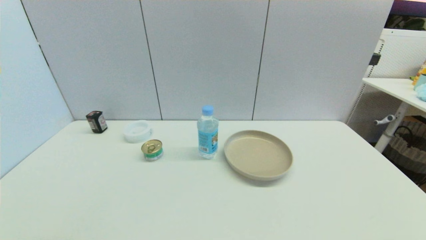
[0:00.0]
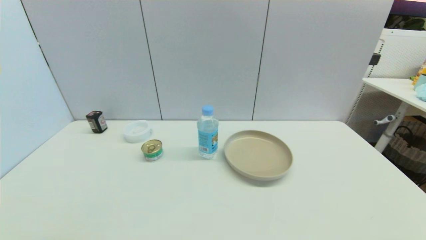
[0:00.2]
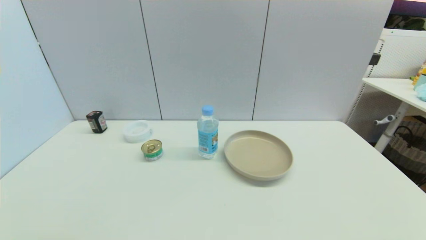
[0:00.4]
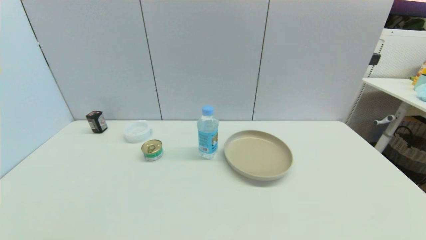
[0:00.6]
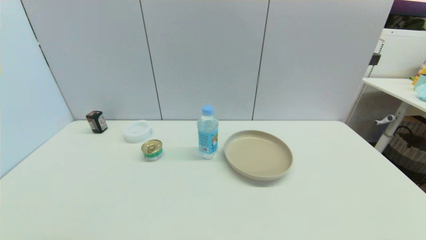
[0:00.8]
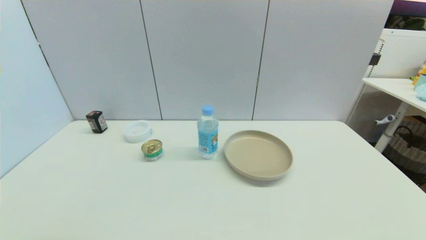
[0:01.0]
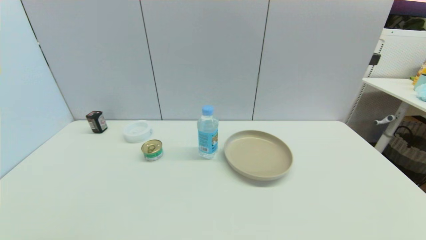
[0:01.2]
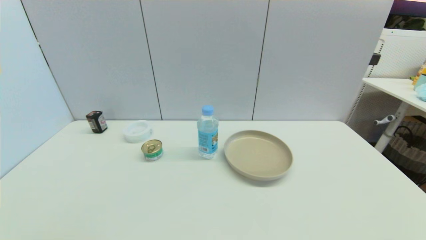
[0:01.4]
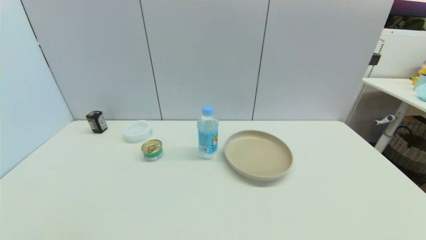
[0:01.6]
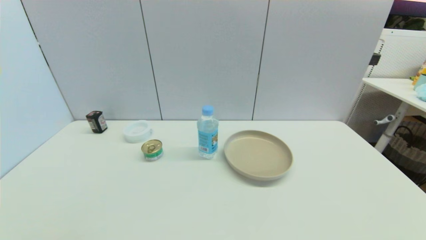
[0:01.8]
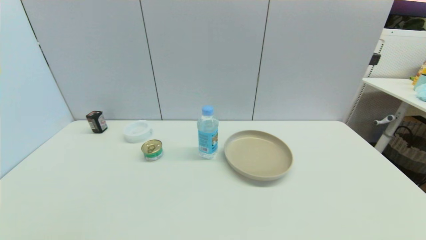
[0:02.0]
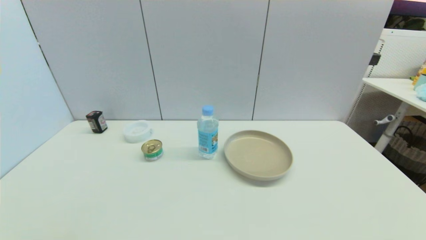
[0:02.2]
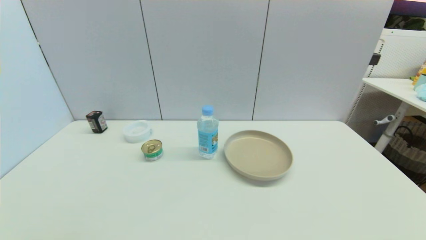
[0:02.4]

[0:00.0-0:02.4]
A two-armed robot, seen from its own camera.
0:01.2 to 0:02.4: Both grippers stay about where they are.

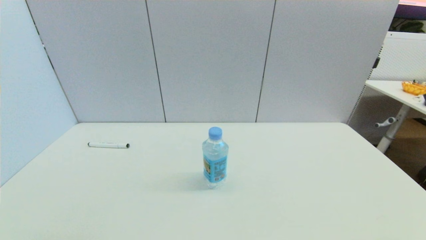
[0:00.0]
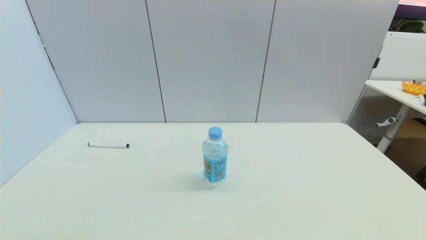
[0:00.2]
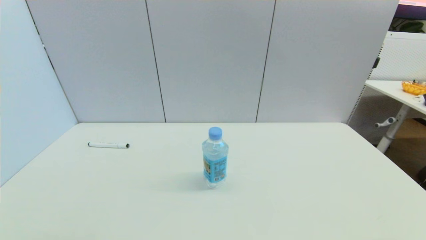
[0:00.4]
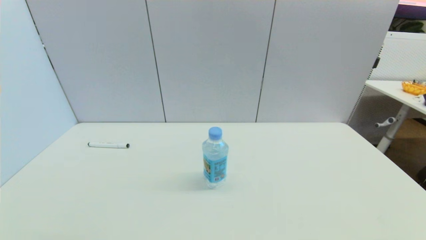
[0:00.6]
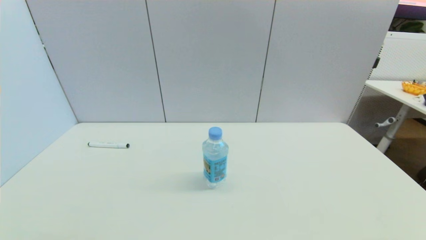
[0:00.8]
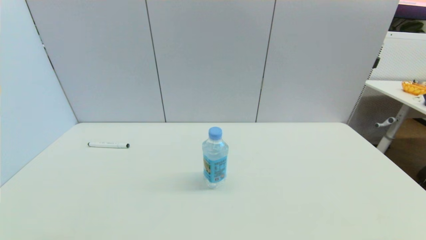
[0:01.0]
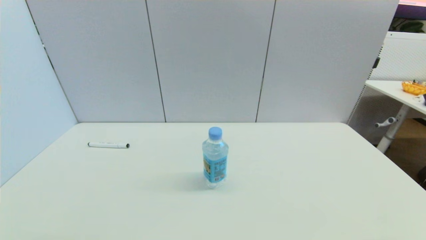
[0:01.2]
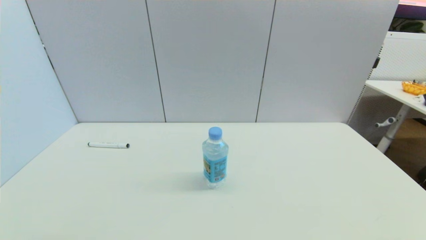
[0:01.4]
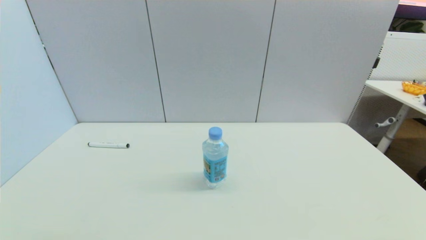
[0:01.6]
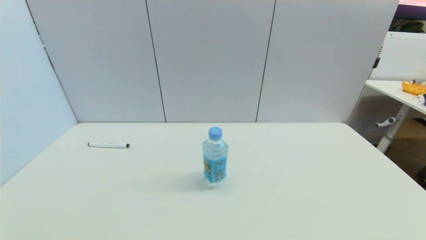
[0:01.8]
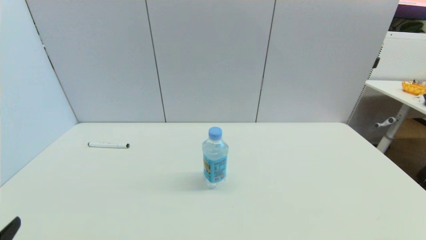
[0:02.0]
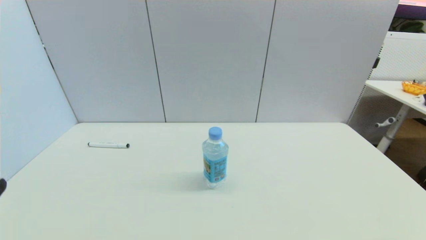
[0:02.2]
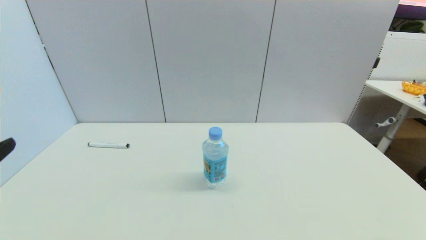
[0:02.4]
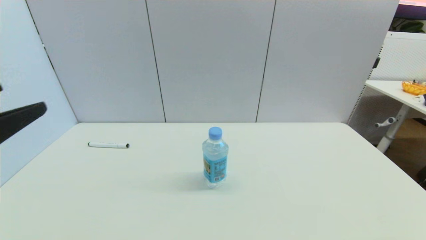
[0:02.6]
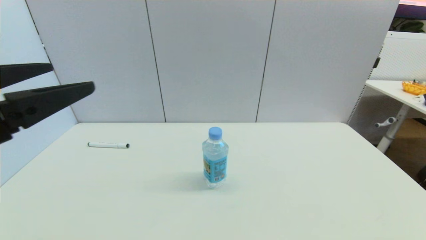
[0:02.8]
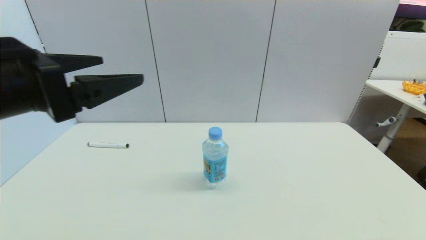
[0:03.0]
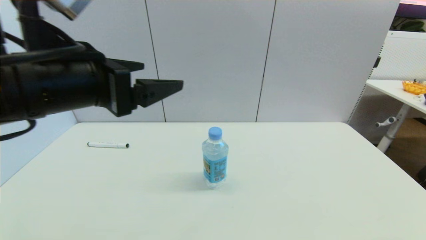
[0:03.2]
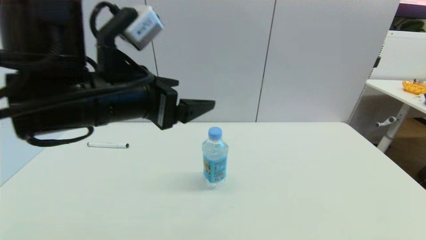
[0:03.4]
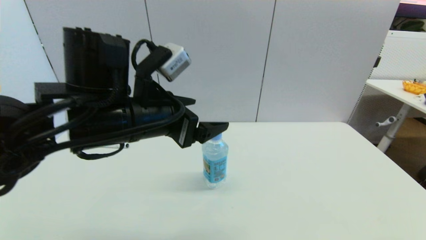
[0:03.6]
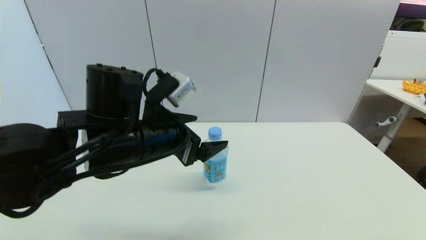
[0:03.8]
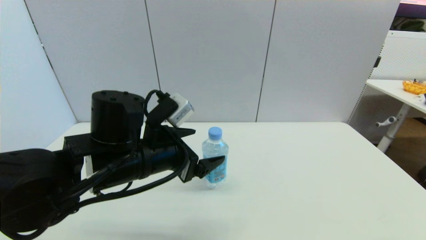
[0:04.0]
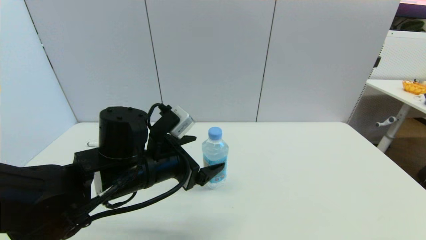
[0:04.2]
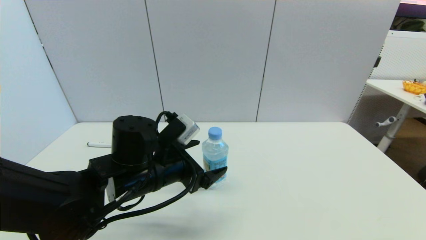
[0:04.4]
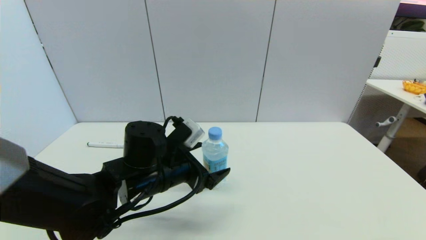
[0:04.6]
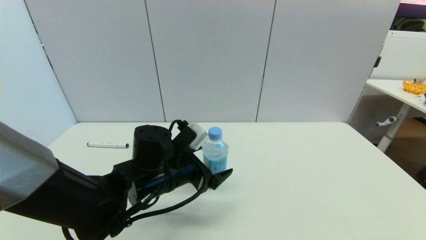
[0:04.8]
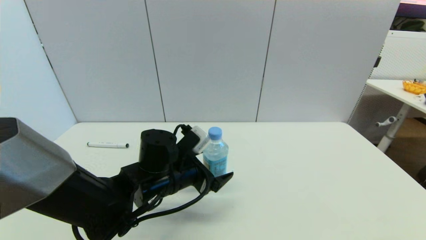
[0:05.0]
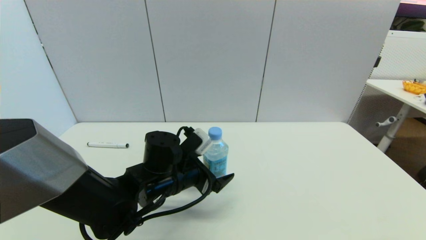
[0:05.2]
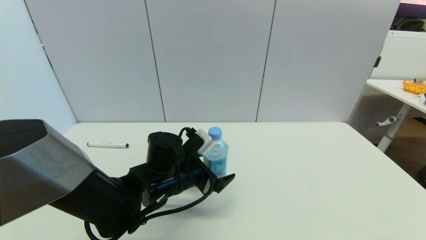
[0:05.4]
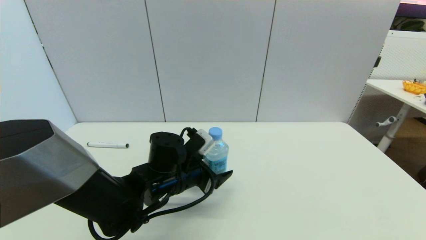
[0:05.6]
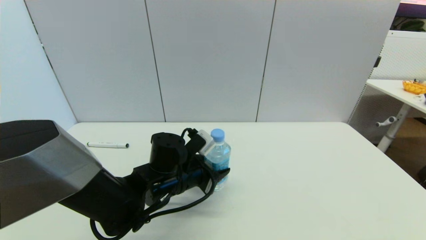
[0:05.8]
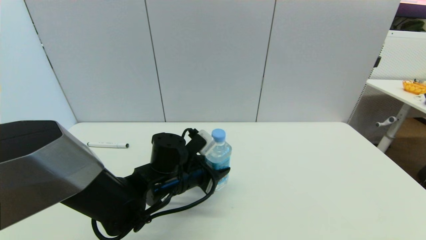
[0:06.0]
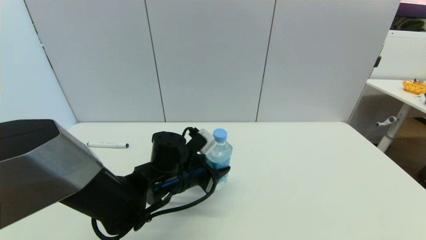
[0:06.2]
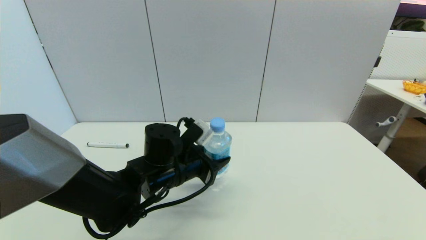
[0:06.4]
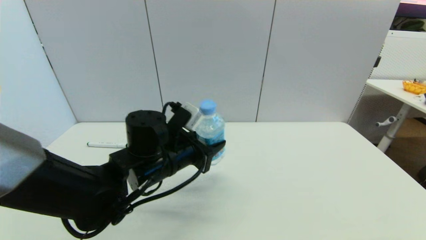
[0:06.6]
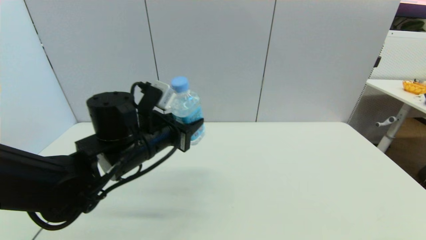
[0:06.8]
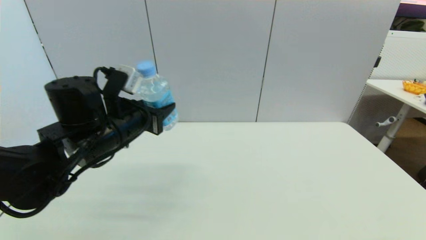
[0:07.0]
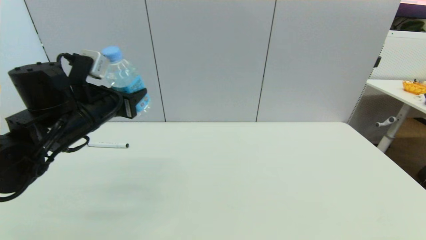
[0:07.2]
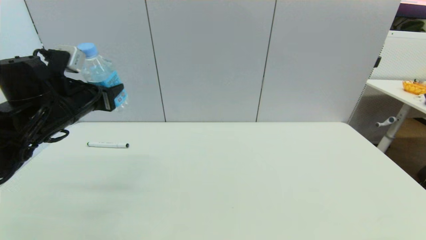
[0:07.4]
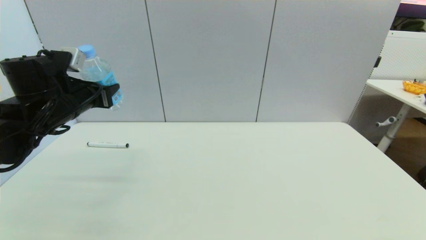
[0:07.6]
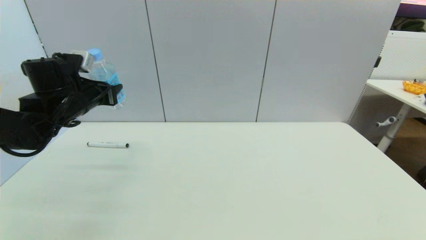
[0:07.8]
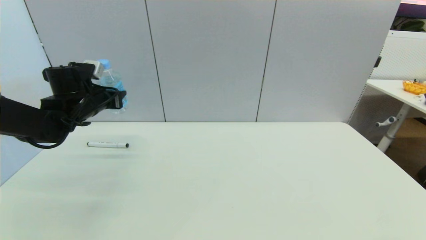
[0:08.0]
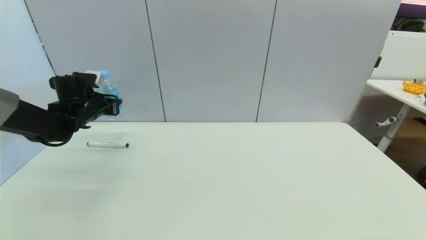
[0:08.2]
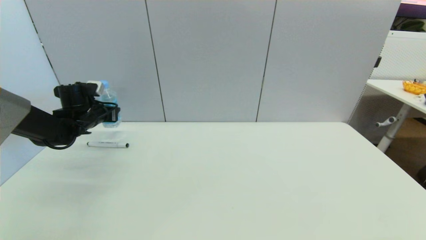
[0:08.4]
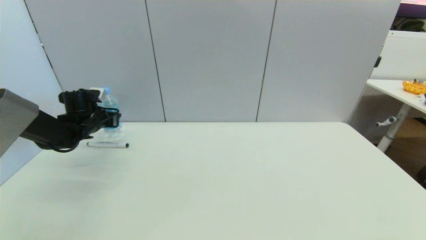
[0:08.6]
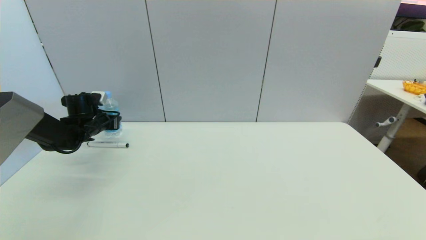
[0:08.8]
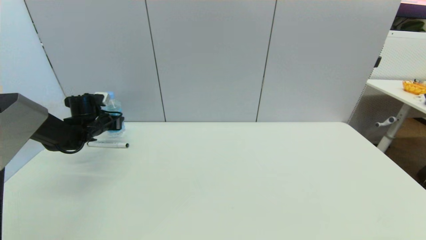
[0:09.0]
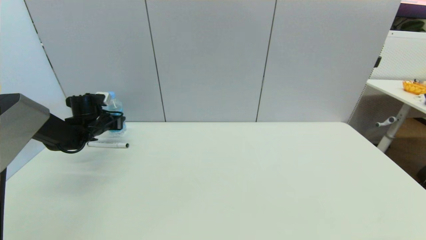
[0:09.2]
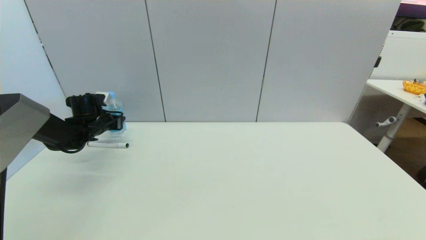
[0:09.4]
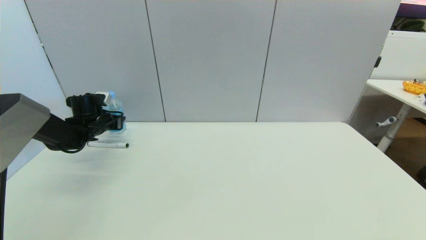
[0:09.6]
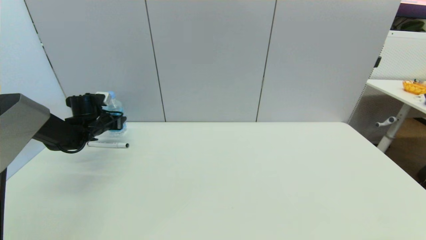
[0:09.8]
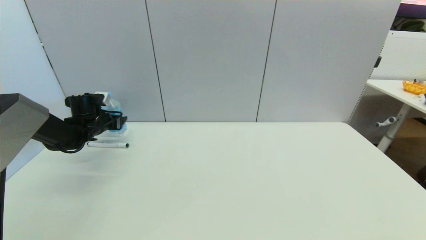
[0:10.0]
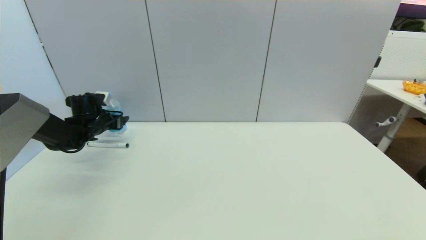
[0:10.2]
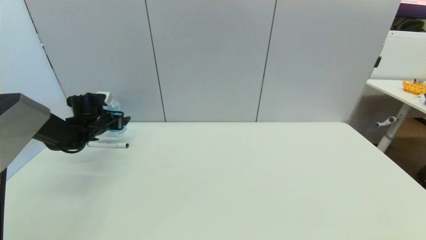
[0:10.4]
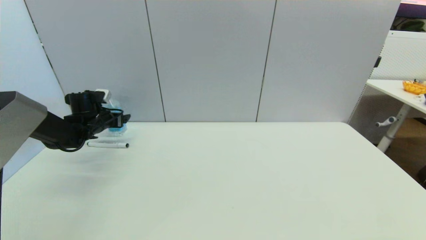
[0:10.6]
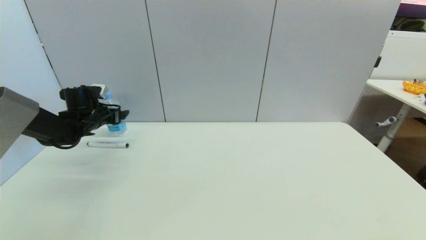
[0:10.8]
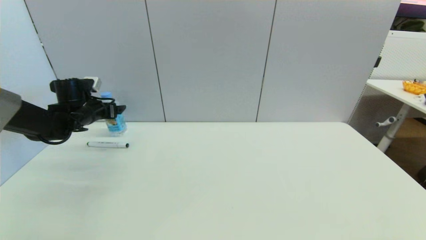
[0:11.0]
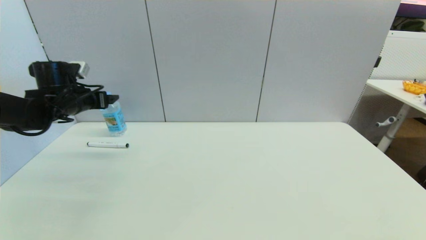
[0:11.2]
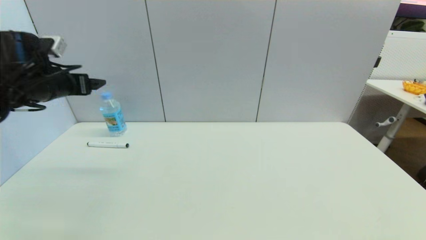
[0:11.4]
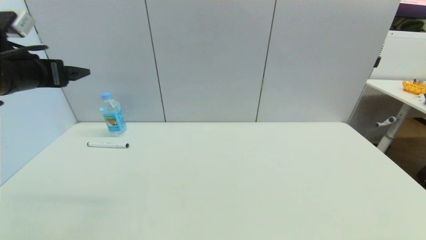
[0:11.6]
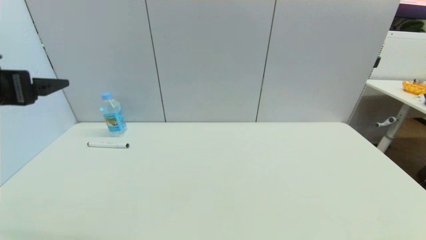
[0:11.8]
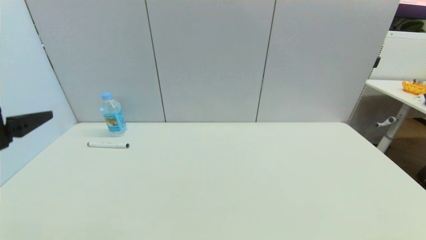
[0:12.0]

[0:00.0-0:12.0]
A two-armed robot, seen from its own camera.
Step, 0:02.0 to 0:06.2: Grasp the soda water with left gripper.
Step, 0:06.4 to 0:09.8: Place the soda water on the table with left gripper.
0:00.0 to 0:01.6: Both grippers stay put.
0:01.6 to 0:03.0: The left gripper heads upward, forward and to the right, covering some 30 cm.
0:03.0 to 0:04.4: The left gripper moves downward, to the right and forward, approximately 20 cm.
0:04.4 to 0:06.0: The left gripper shifts about 5 cm downward, and closes up.
0:06.0 to 0:07.6: The left gripper goes roughly 25 cm to the left and upward.
0:07.6 to 0:09.0: The left gripper moves downward, forward and to the left, roughly 20 cm.
0:09.0 to 0:10.4: The left gripper opens up.
0:10.4 to 0:12.0: The left gripper heads backward and upward, covering about 35 cm.

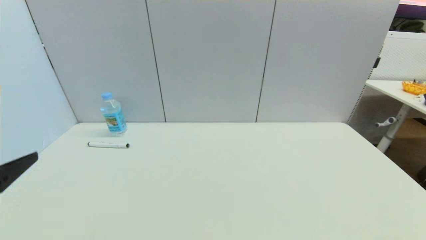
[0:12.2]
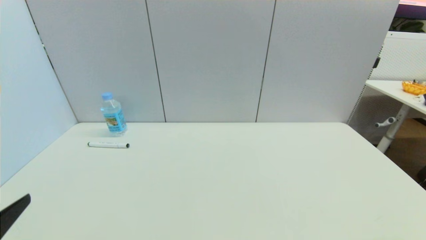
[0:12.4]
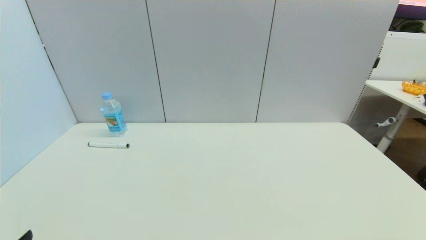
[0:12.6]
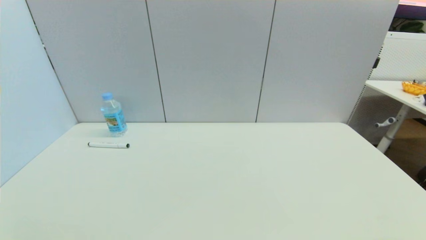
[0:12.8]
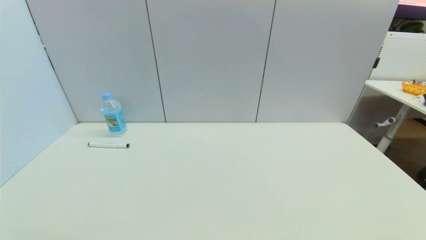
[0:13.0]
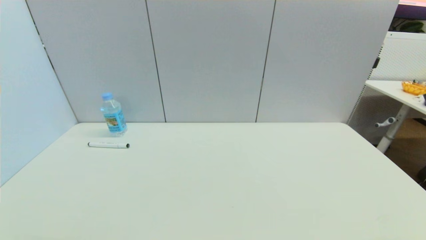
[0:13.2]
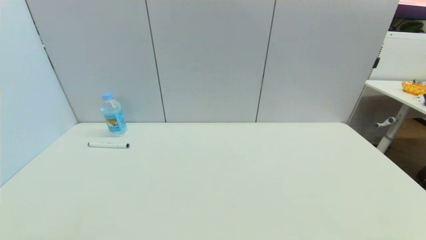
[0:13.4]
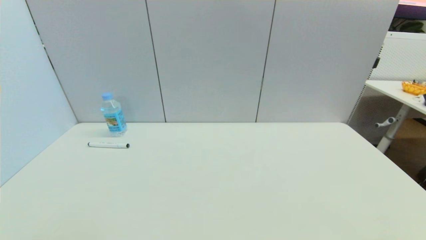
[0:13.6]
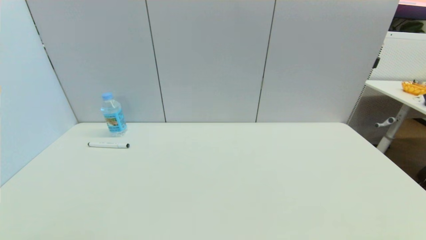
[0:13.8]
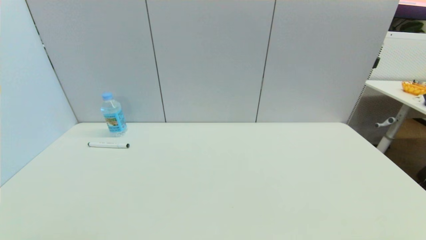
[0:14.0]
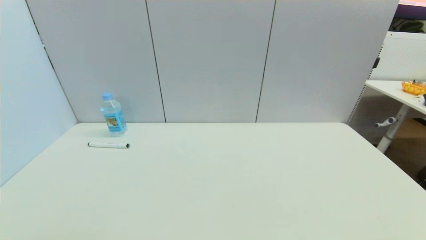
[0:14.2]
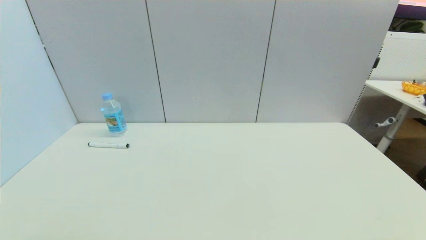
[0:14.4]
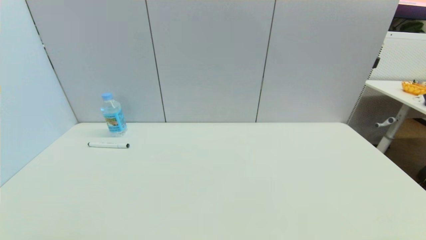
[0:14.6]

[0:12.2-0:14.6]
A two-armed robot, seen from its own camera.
0:12.2 to 0:13.4: The left gripper travels downward and backward by some 20 cm.
0:13.4 to 0:14.6: The two grippers keep their place.
